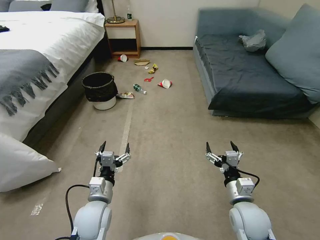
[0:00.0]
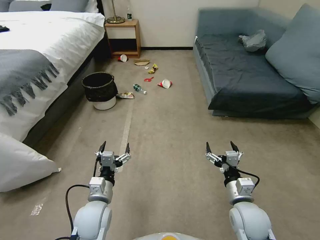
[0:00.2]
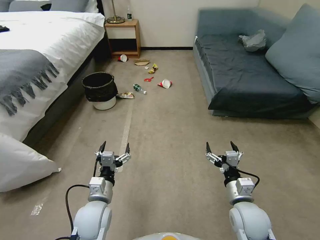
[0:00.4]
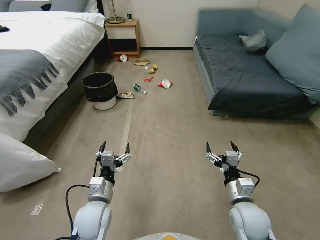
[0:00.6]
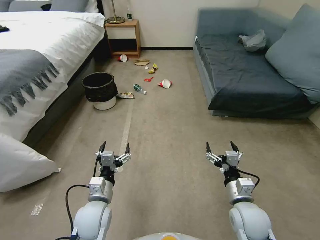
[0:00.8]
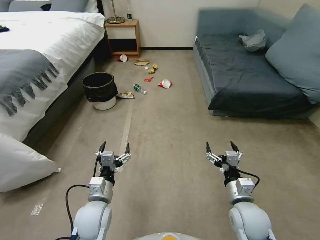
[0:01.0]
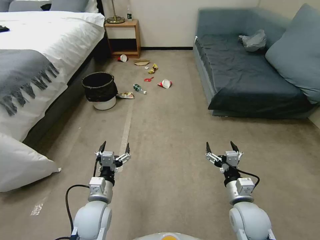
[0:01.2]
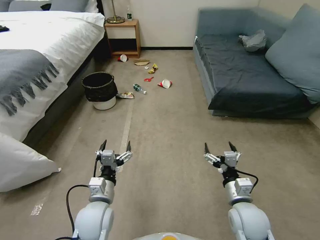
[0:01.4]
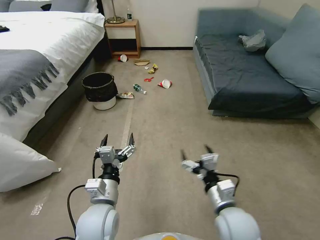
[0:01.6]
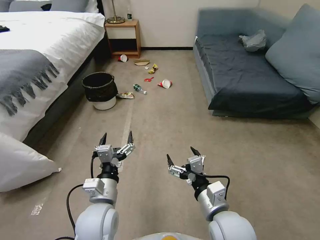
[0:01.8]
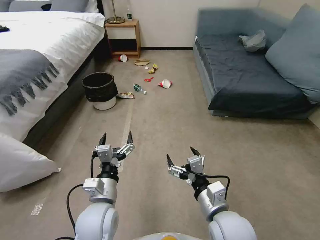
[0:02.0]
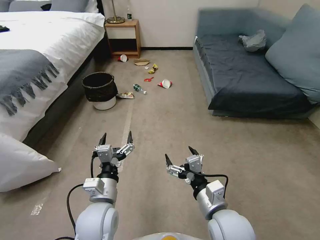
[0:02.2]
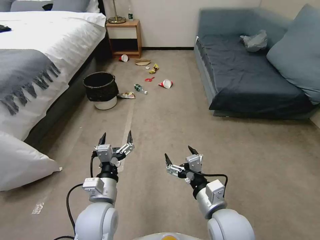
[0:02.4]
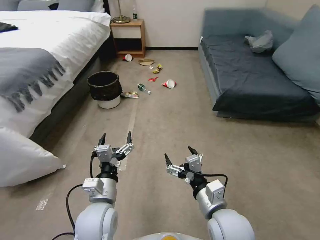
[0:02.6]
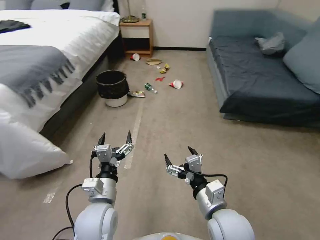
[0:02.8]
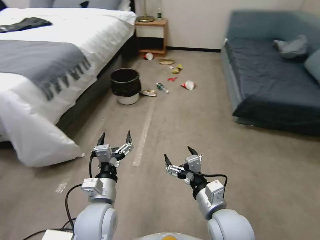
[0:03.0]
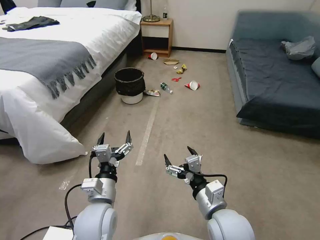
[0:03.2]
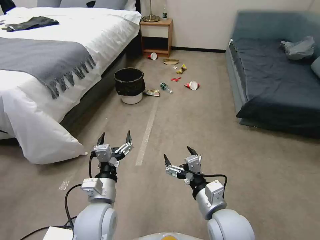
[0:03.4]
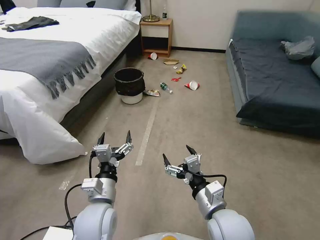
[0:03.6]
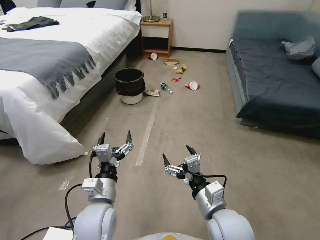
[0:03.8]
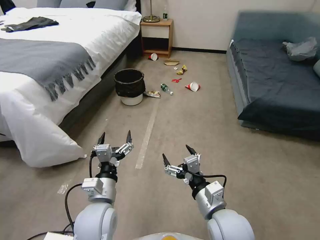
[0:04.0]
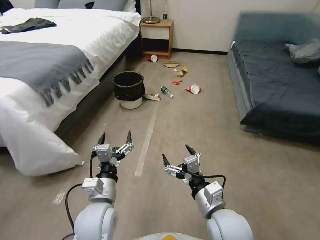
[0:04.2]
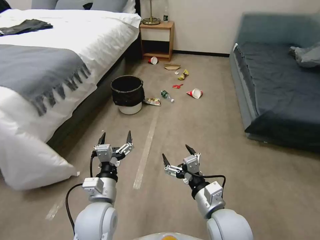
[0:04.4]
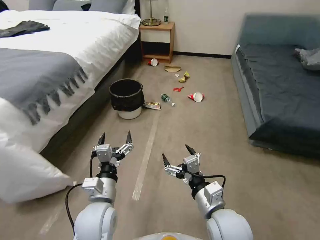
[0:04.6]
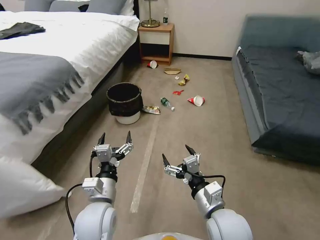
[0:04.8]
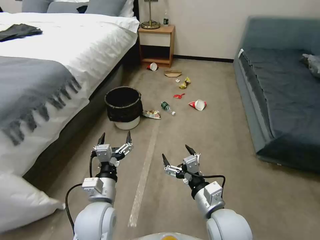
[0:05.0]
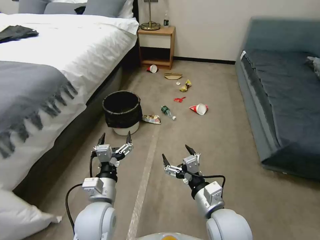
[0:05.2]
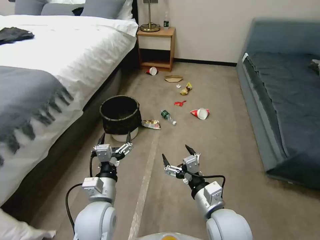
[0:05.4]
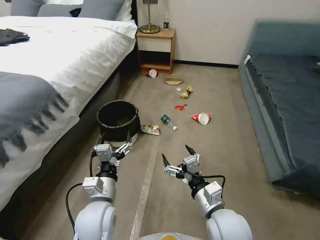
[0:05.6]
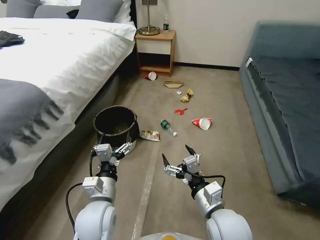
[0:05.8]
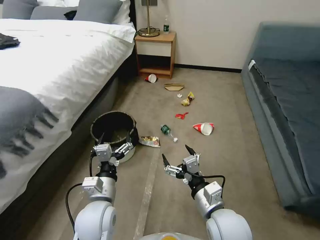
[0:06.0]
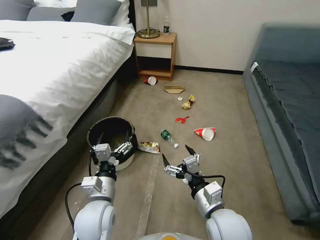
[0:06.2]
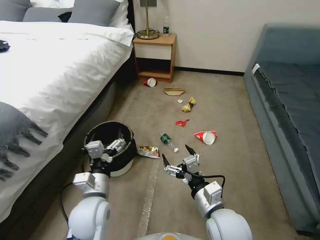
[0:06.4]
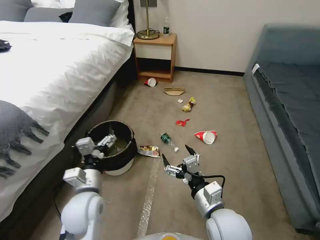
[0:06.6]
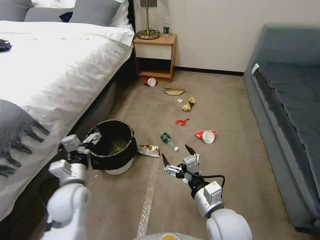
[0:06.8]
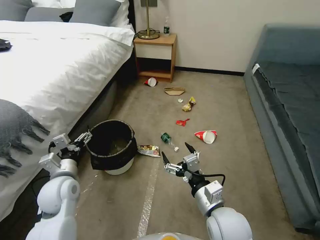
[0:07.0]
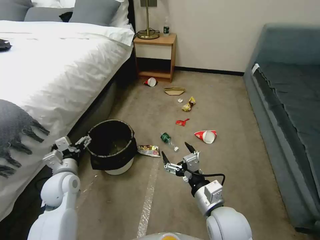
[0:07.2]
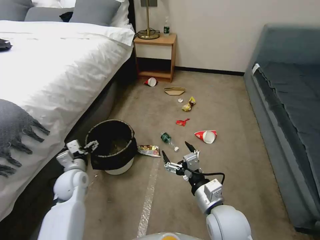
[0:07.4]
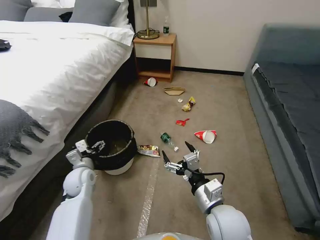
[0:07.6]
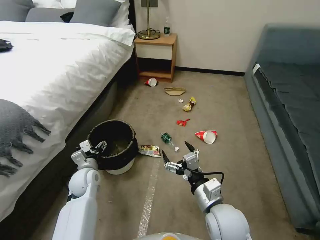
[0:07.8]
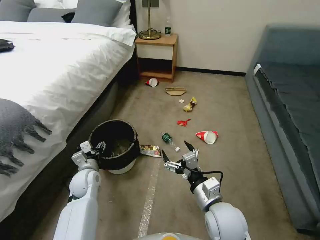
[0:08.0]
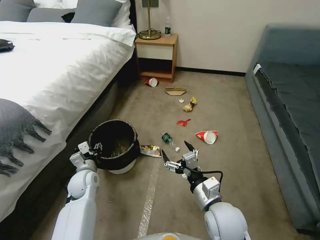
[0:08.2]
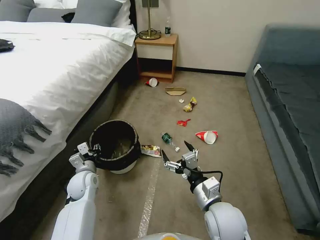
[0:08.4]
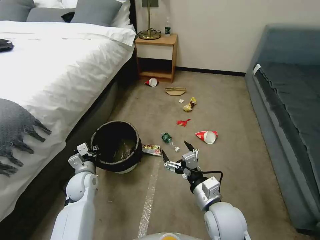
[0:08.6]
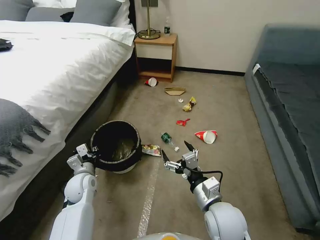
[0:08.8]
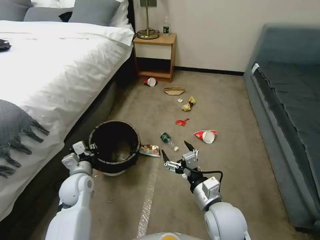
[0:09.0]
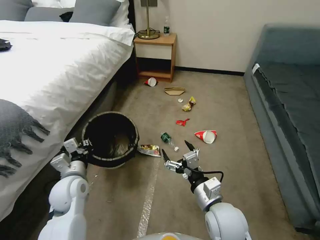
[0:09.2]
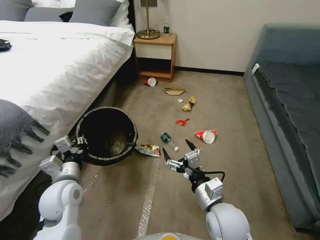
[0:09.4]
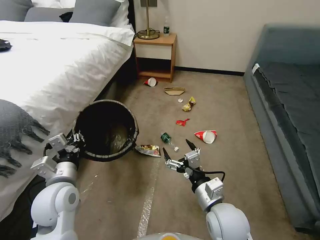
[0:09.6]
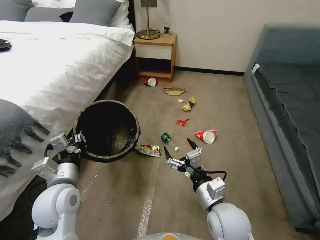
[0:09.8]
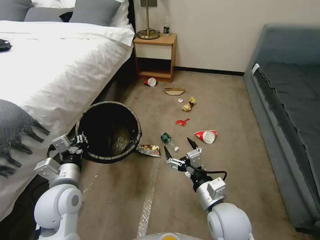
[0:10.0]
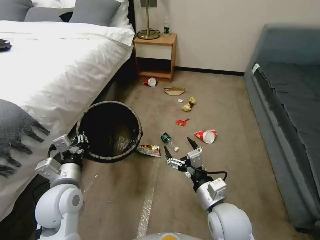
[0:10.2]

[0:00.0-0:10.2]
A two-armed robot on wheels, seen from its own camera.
Task of the whole recording: Pick up the trash can from the floor.
0:01.4 to 0:03.0: The right gripper is displaced to the left and upward by some 10 cm, while the left gripper goes some 5 cm upward.
0:05.8 to 0:07.2: The left gripper moves to the left and forward, approximately 15 cm.
0:07.2 to 0:08.8: The left gripper goes roughly 5 cm downward, and closes.
0:08.8 to 0:10.2: The left gripper is displaced upward and backward by roughly 15 cm.

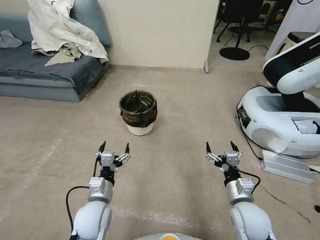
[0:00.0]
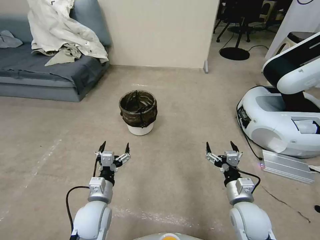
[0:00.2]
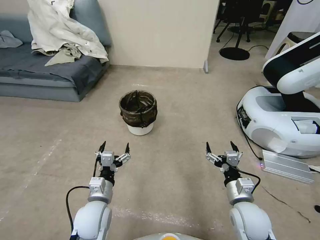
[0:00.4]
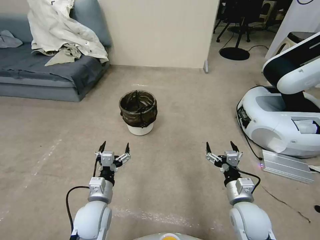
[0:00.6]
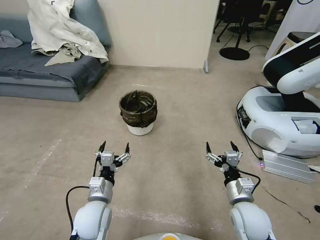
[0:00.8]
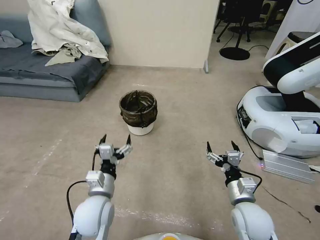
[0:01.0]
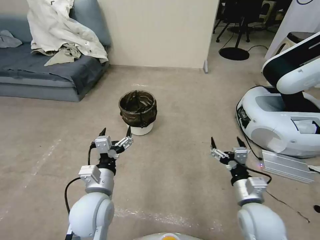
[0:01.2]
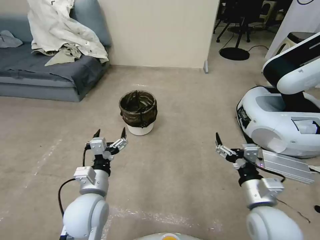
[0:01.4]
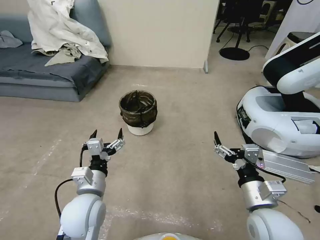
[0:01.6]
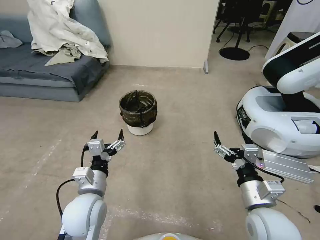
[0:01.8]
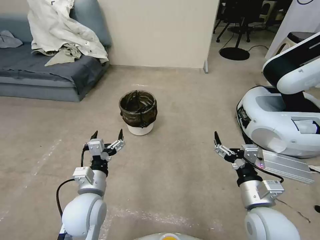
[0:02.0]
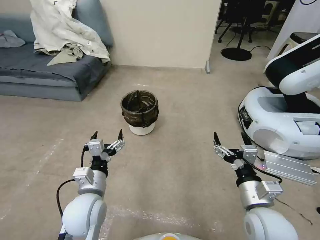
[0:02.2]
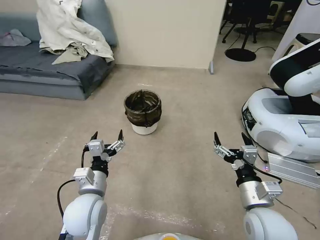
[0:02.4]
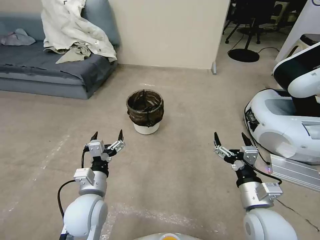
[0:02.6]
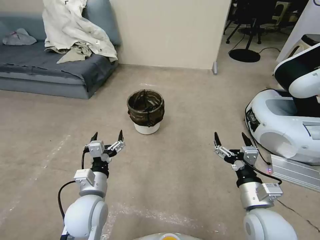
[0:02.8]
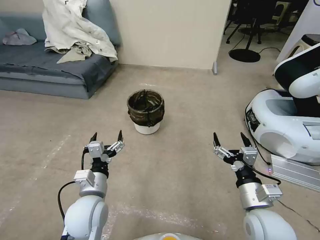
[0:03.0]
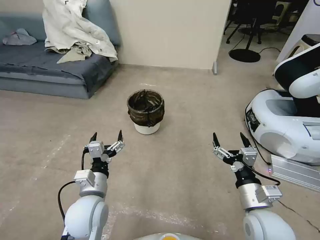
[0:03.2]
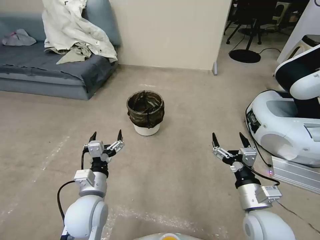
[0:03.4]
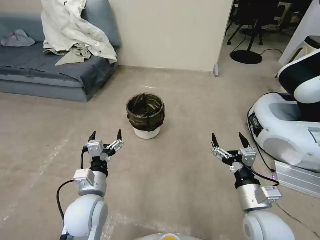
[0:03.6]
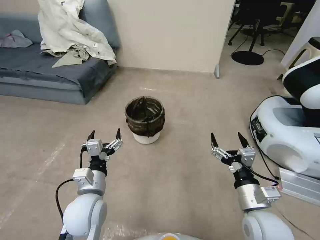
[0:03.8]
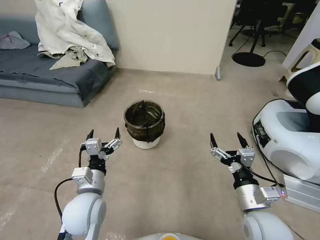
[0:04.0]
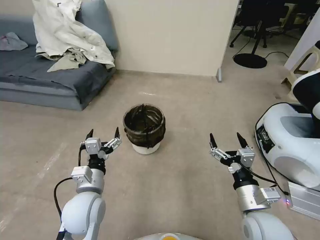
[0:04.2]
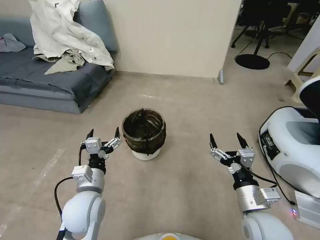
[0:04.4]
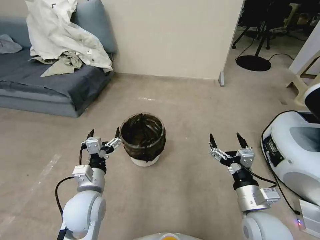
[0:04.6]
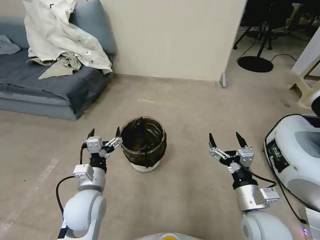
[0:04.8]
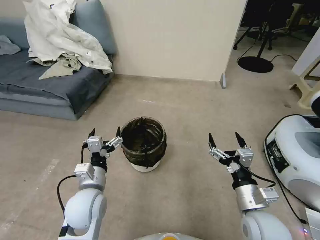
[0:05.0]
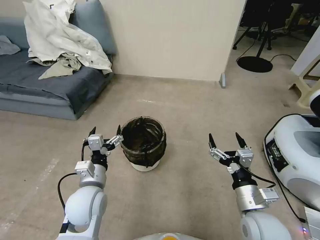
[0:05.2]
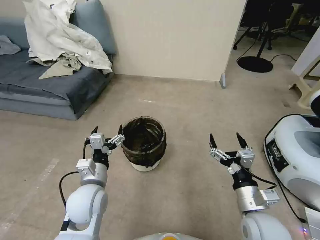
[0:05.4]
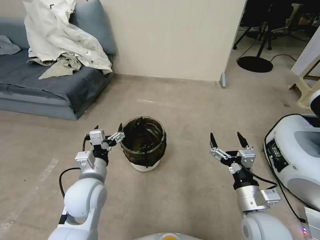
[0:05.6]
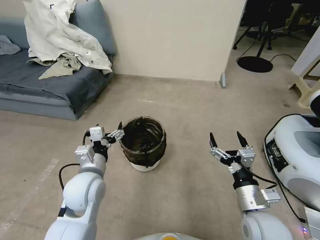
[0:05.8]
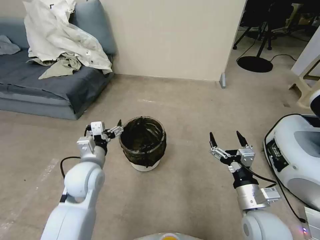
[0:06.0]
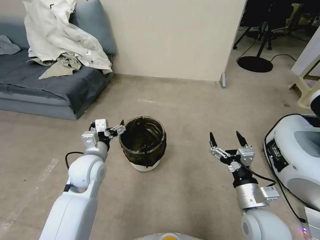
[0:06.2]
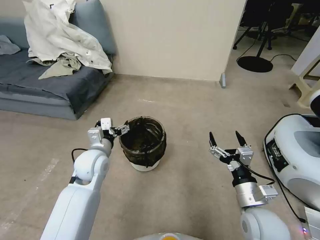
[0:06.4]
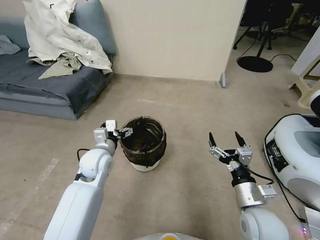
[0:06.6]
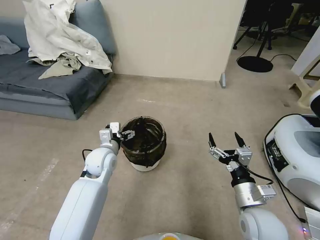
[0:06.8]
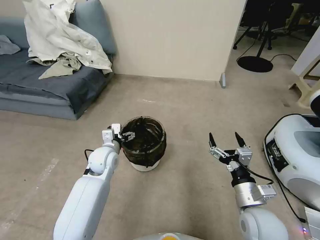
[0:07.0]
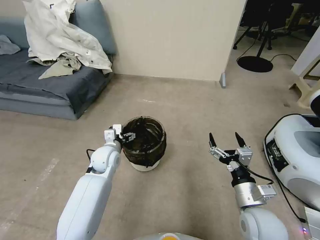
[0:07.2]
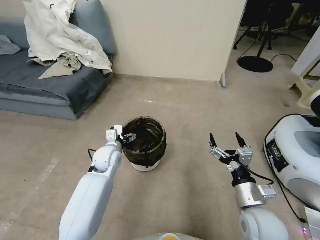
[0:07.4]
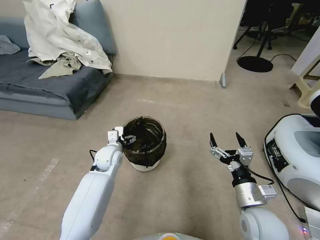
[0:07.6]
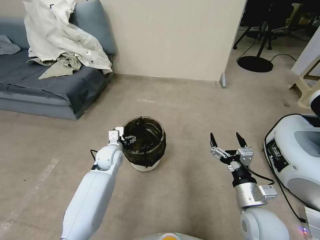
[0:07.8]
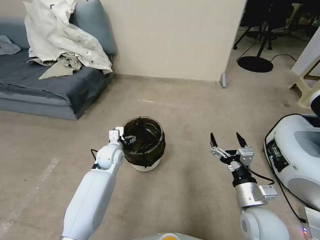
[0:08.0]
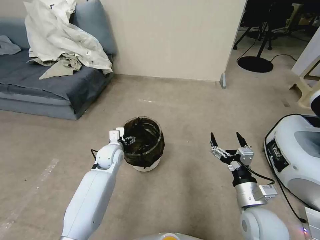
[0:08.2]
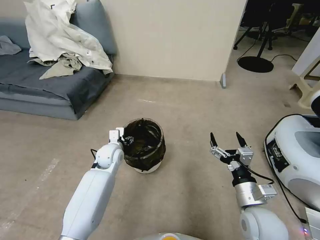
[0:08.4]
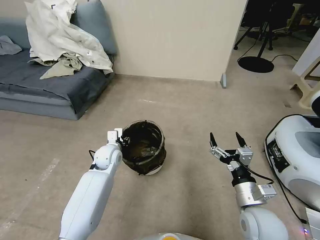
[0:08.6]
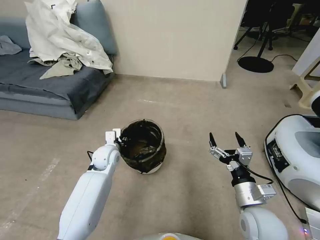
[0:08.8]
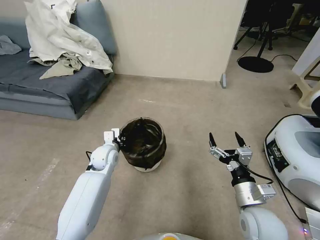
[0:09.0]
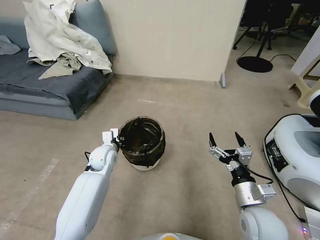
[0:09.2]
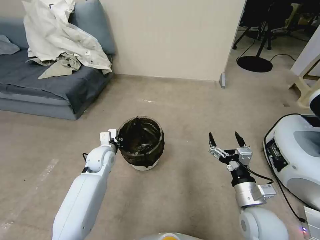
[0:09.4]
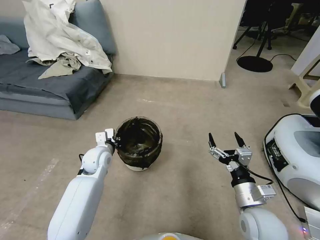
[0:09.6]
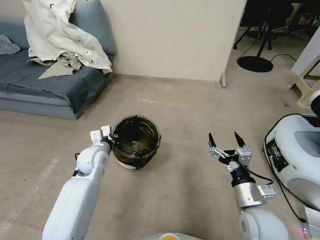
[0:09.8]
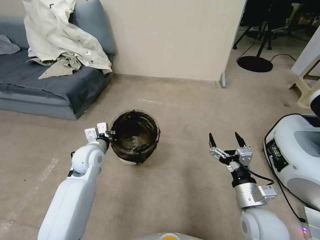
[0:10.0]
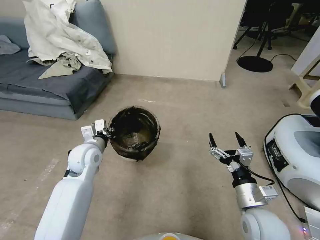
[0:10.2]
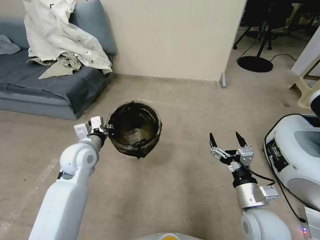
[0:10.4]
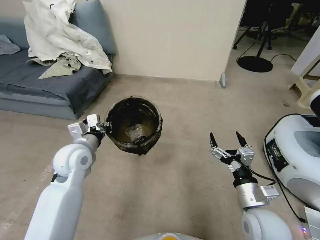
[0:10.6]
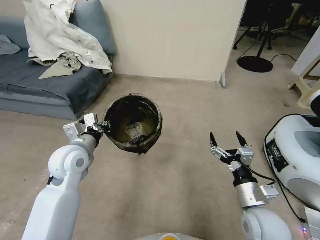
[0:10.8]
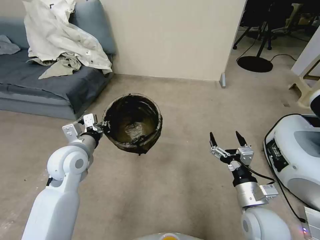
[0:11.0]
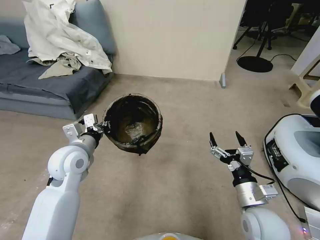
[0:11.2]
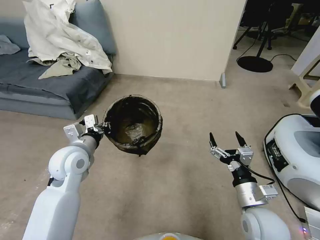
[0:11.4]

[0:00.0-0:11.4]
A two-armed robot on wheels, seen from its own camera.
Task of the whole recording: Pick up the trash can from the floor.
0:05.6 to 0:07.2: The left gripper shifts roughly 15 cm forward and downward.
0:07.2 to 0:08.6: The left gripper closes its fingers.
0:08.6 to 0:10.0: The left gripper moves upward, roughly 5 cm, and closes its fingers.
0:10.0 to 0:11.4: The left gripper shifts some 10 cm upward and backward.
